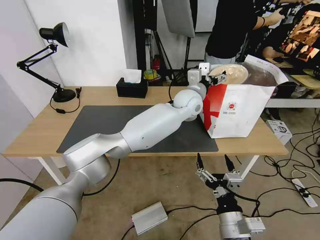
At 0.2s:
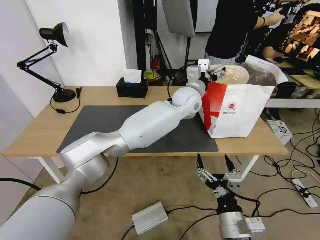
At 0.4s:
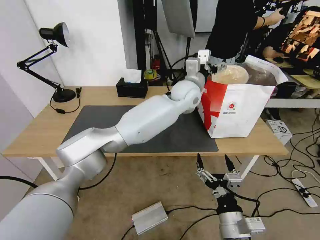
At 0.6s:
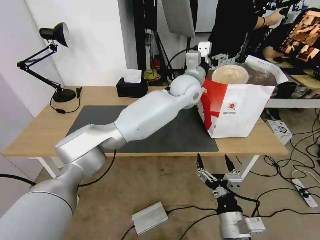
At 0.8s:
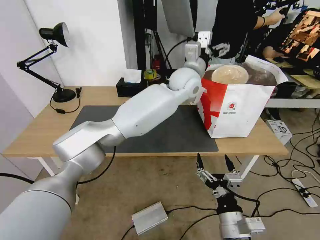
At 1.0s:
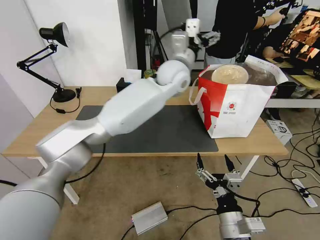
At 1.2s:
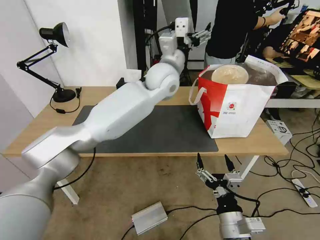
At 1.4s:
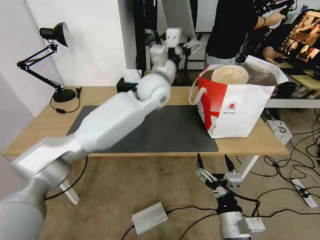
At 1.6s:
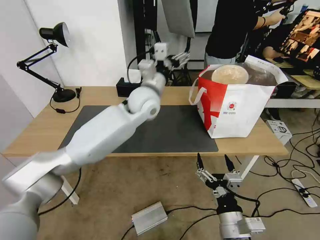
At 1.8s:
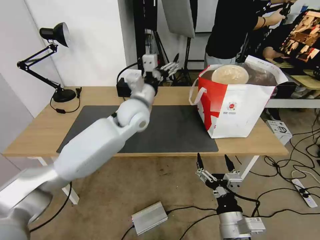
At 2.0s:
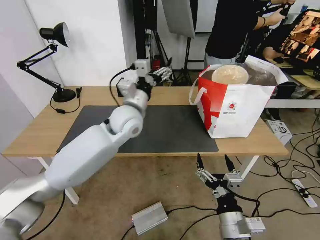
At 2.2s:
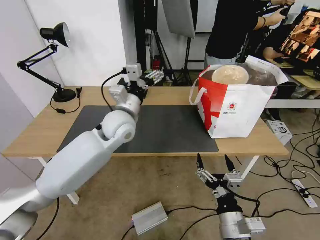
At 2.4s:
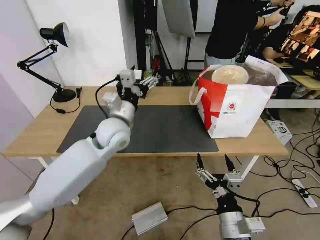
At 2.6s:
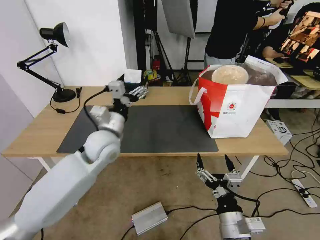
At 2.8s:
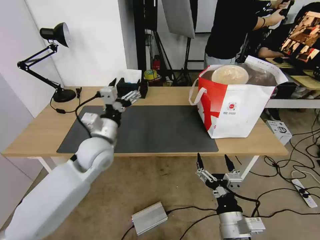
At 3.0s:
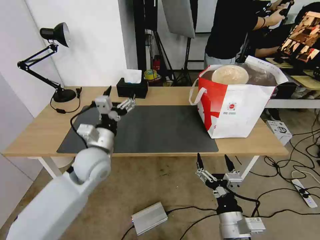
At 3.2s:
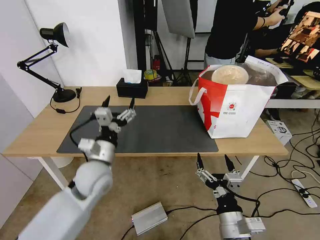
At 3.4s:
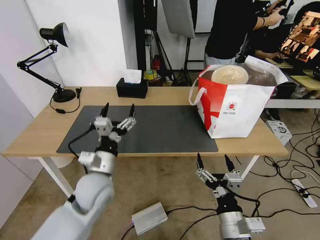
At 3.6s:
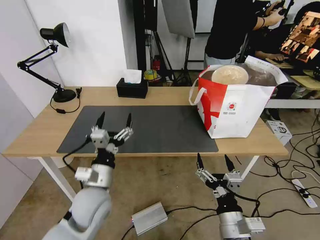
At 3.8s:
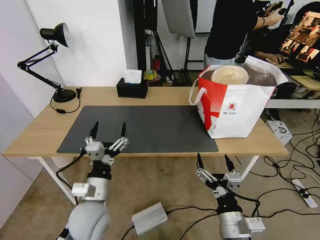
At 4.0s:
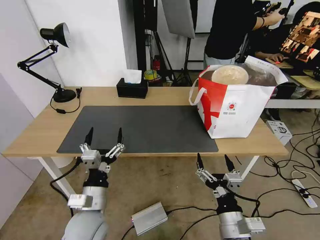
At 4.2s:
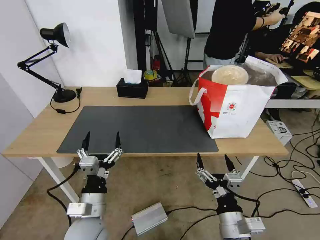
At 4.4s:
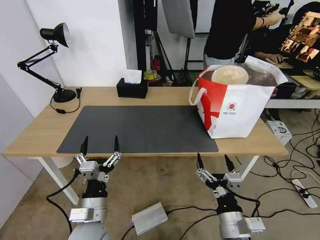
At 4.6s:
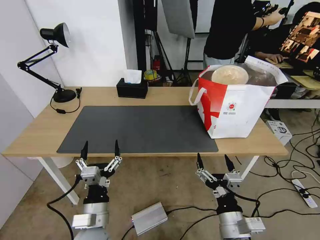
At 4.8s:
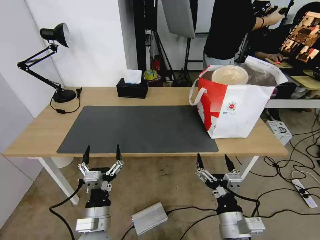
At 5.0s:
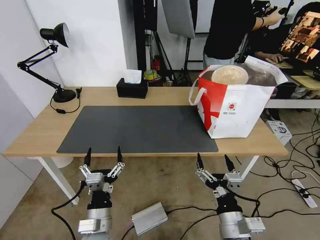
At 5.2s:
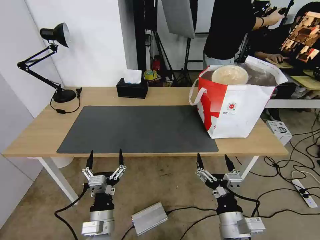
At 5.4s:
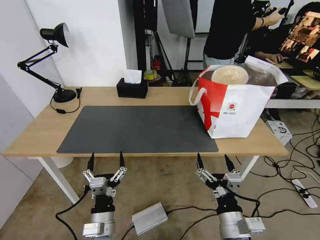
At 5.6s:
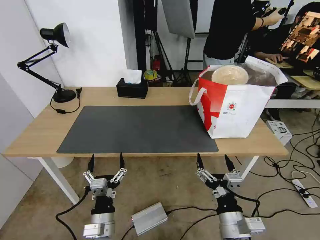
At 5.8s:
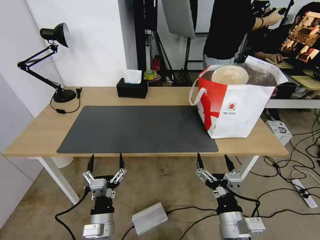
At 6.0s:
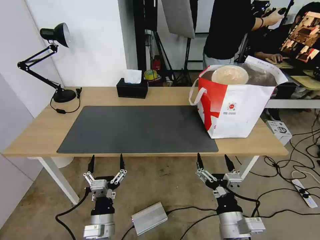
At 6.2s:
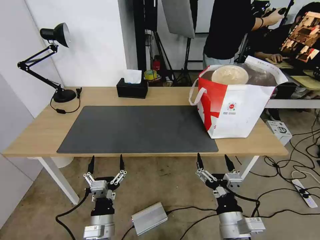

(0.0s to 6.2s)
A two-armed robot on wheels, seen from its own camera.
Task of the whole recording: Pick up the trash from the table and place it into the takeout bag.
0.0s - 1.6s: The left gripper is displaced to the left by approximately 15 cm.
1.6s - 3.2s: The left gripper moves backward, to the left and downward, approximately 25 cm.
3.2s - 4.6s: The left gripper travels backward and downward by roughly 20 cm.
4.6s - 6.2s: The left gripper is displaced downward by approximately 5 cm.
